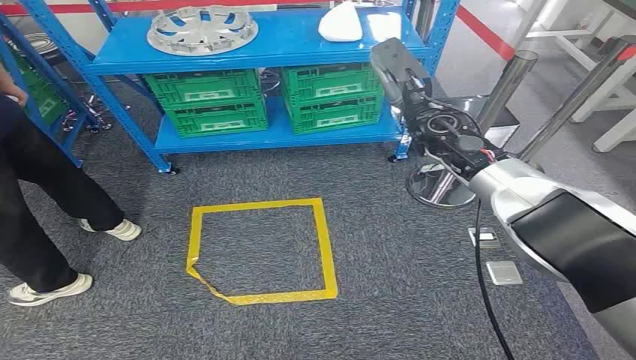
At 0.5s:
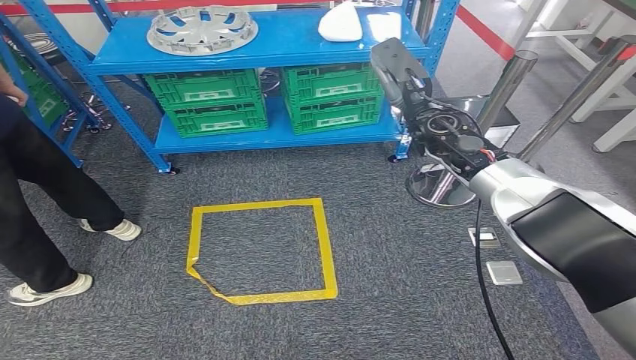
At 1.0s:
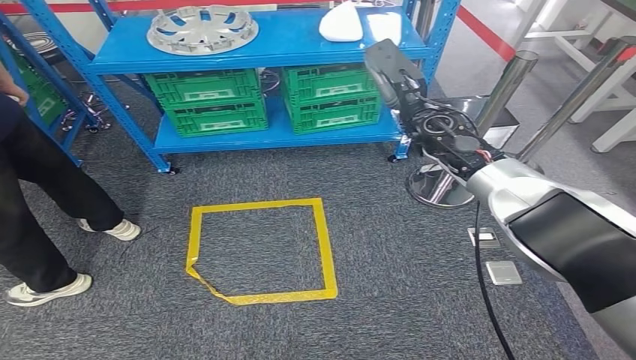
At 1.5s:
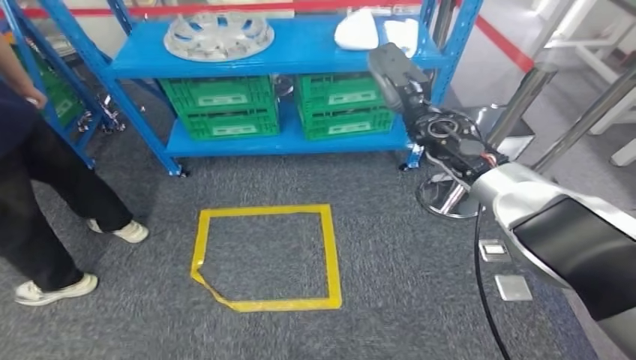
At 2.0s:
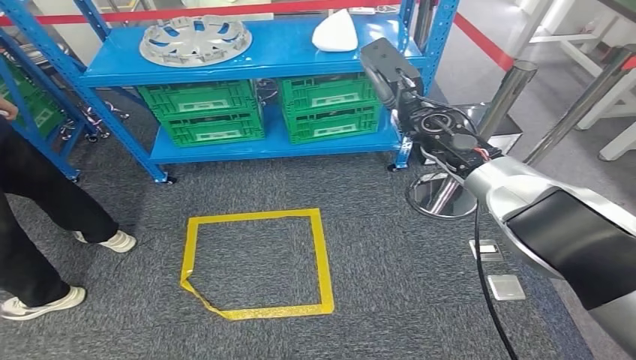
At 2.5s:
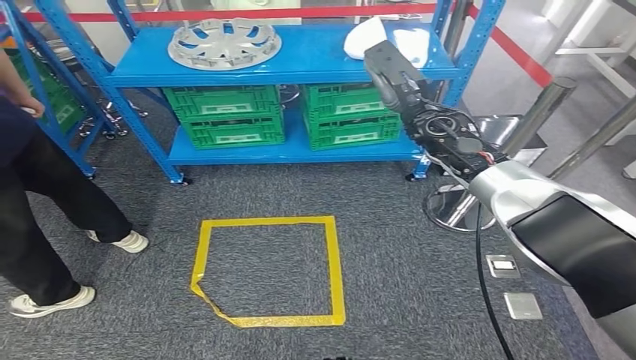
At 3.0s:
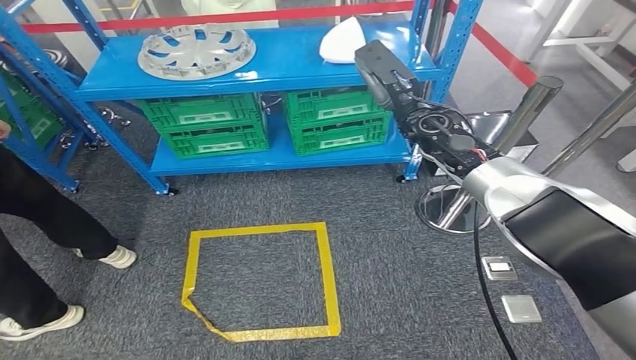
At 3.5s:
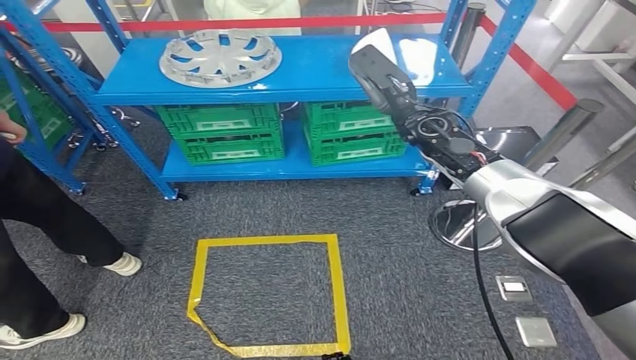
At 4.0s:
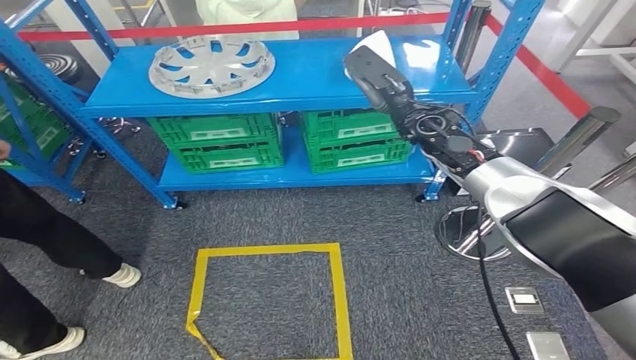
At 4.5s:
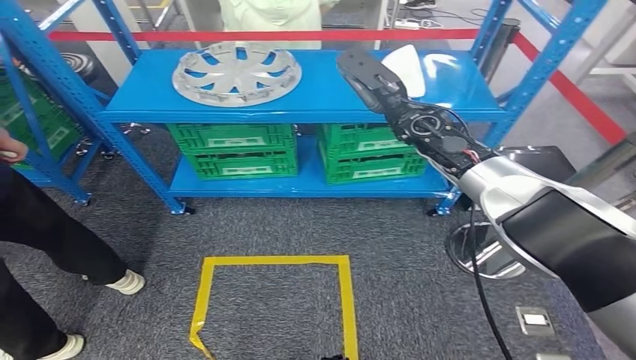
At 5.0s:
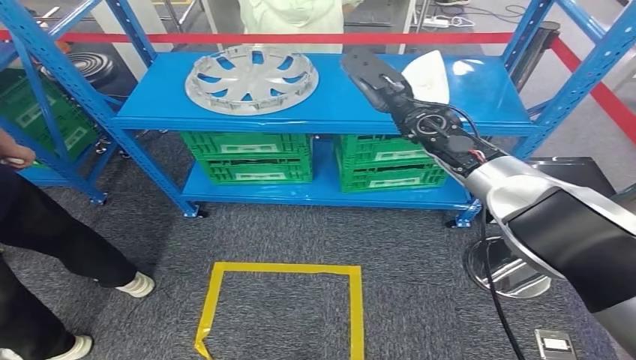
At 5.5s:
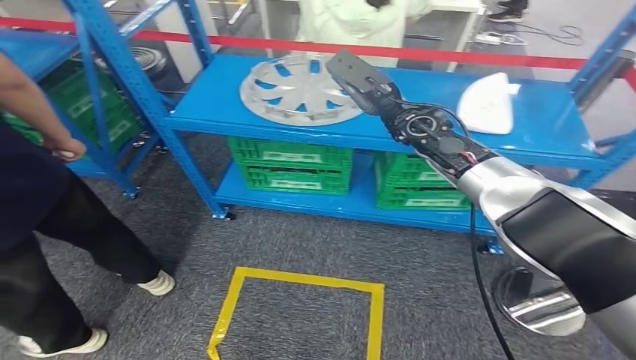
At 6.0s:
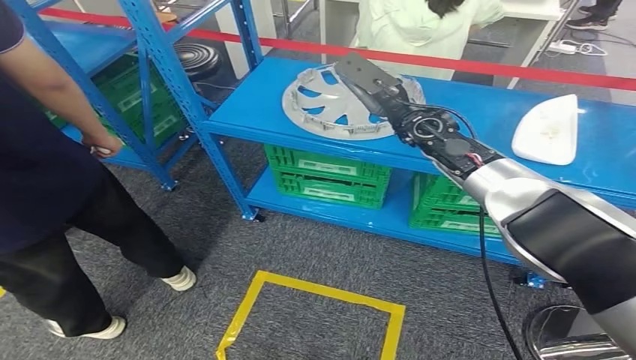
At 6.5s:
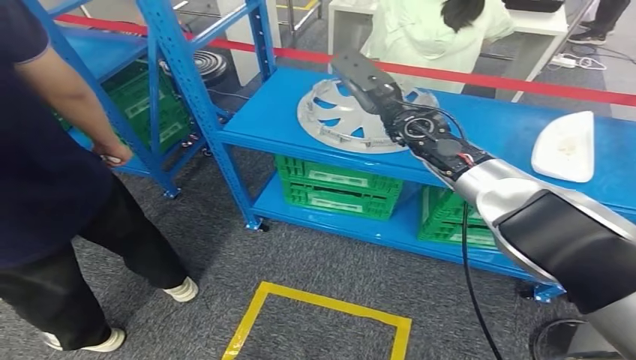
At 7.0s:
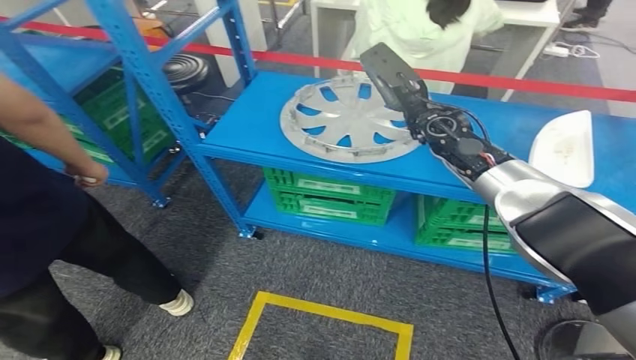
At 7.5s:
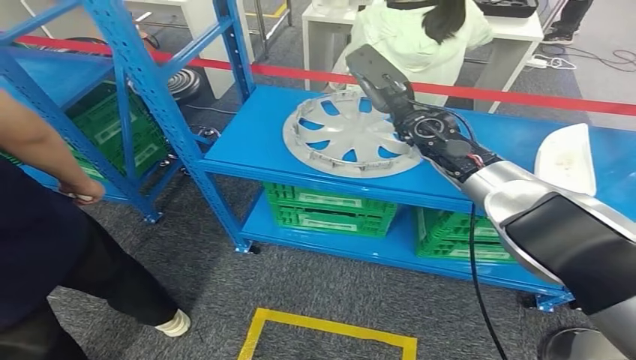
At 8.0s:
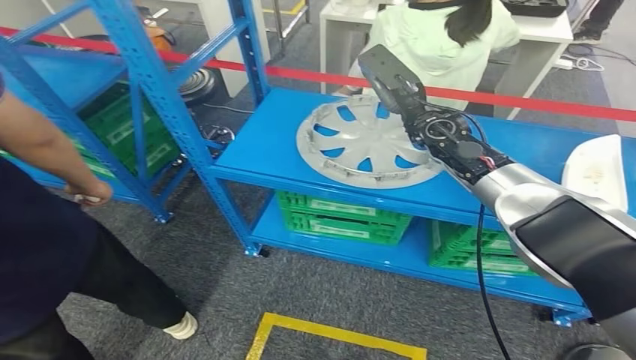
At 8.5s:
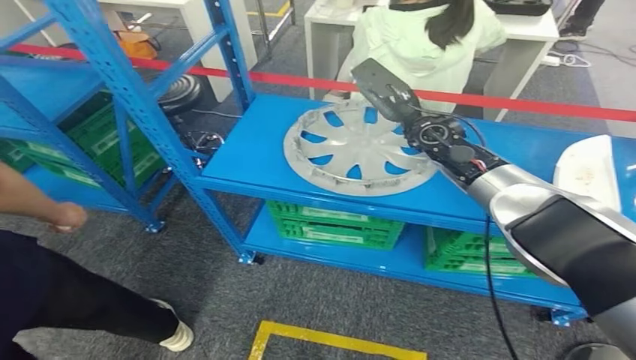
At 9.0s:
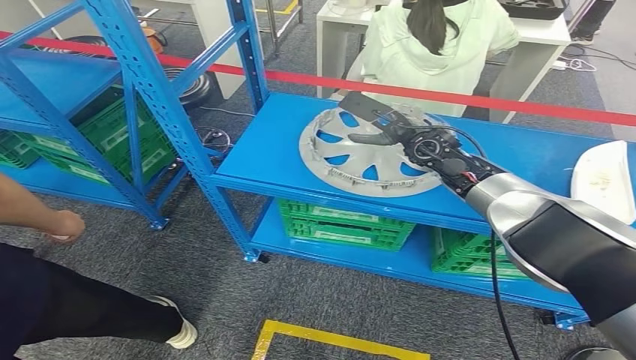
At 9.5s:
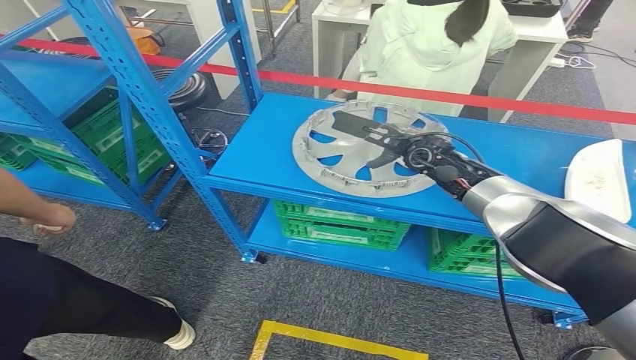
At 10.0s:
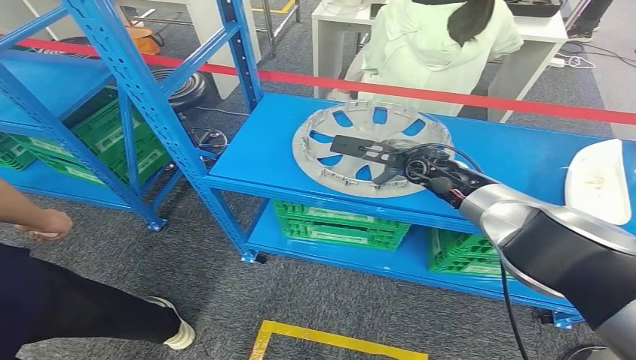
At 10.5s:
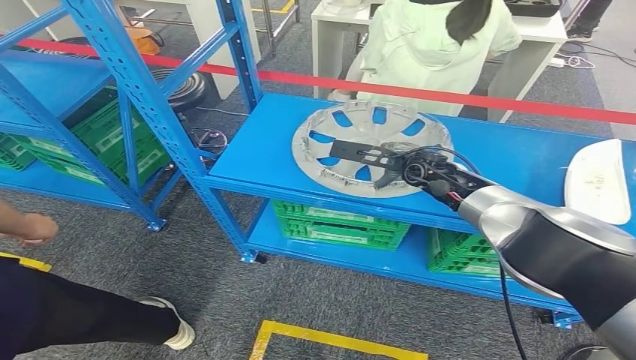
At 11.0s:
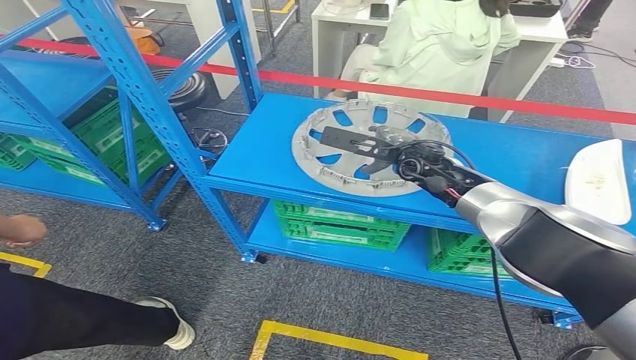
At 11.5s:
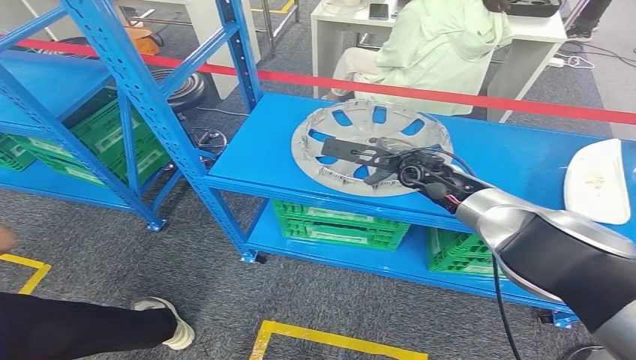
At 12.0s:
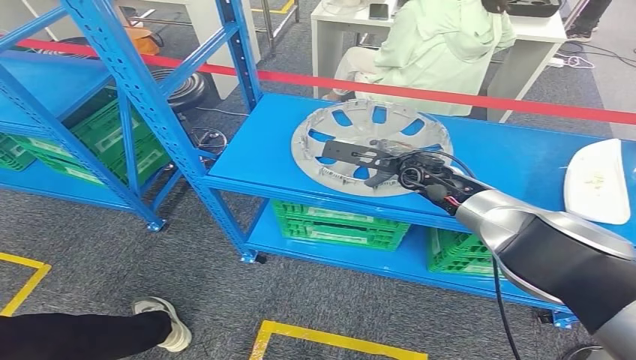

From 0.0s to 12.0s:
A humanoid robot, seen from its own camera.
From 10.0s to 12.0s: The hands make only small movements.

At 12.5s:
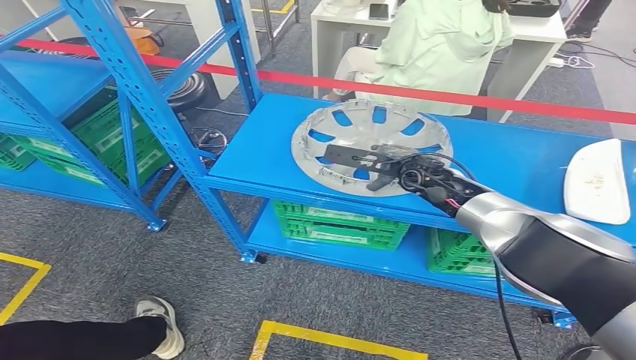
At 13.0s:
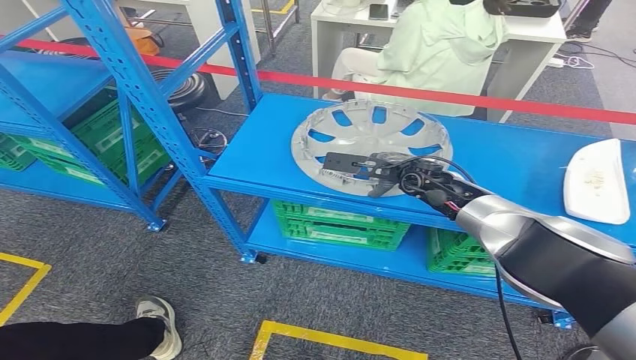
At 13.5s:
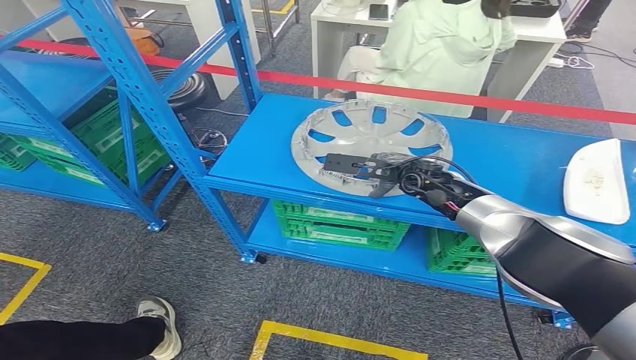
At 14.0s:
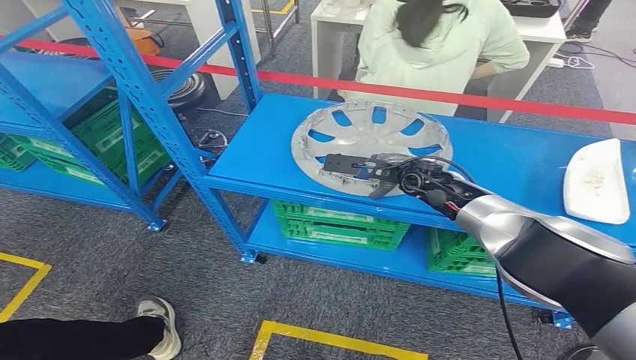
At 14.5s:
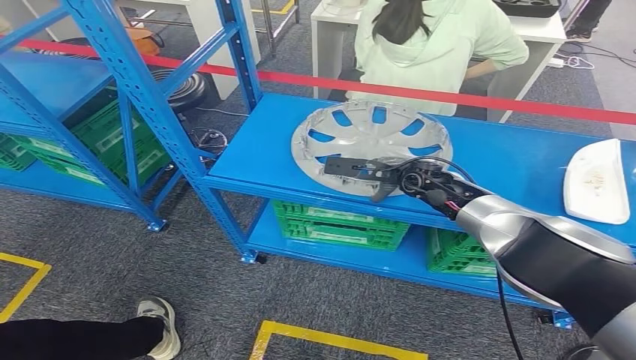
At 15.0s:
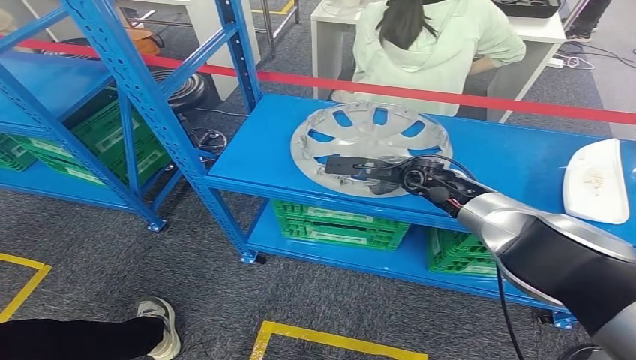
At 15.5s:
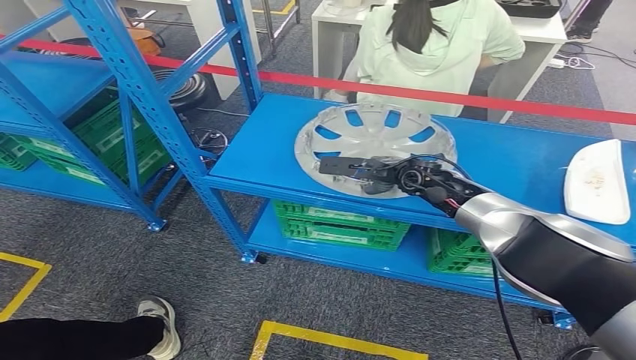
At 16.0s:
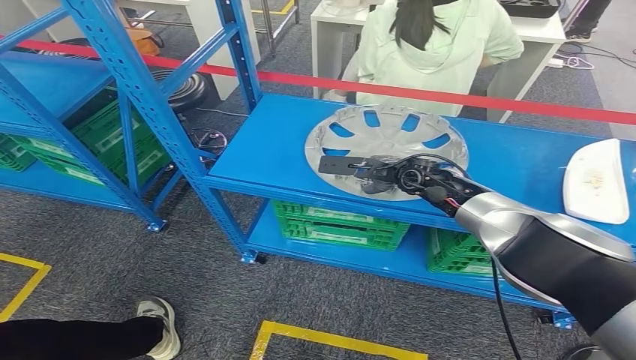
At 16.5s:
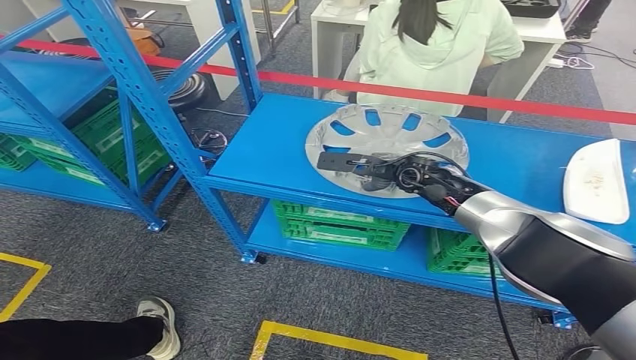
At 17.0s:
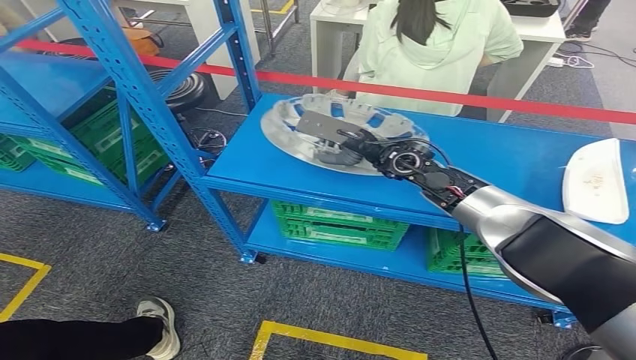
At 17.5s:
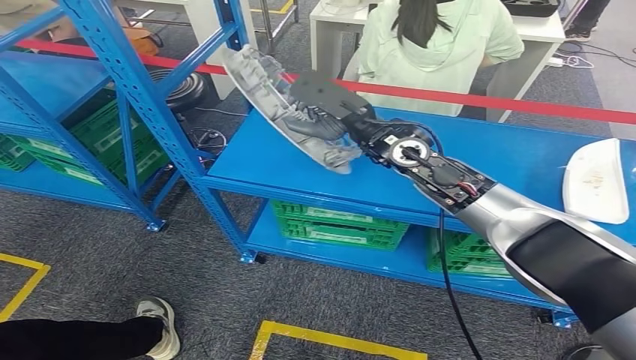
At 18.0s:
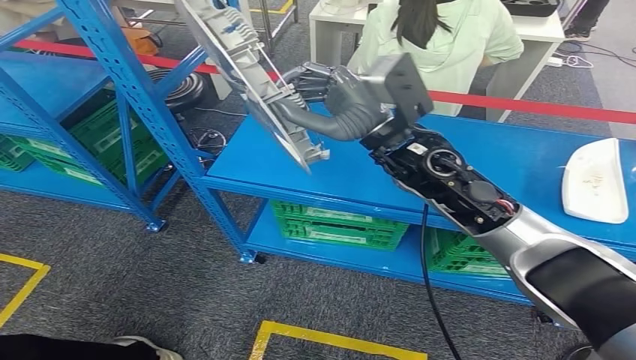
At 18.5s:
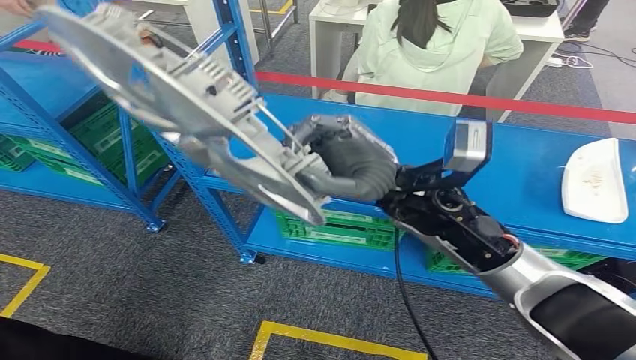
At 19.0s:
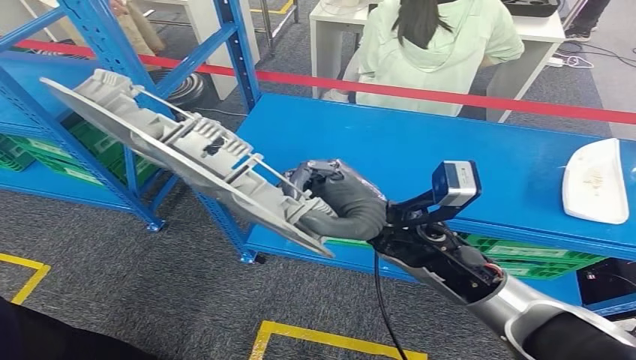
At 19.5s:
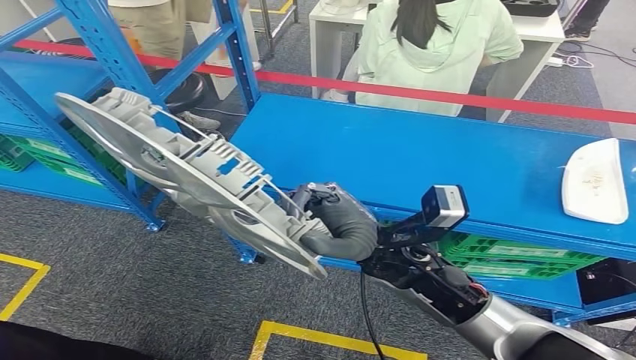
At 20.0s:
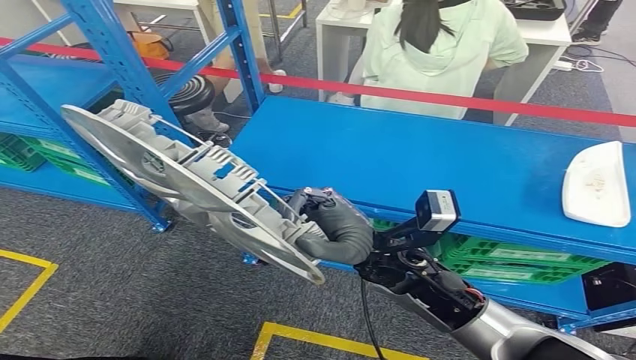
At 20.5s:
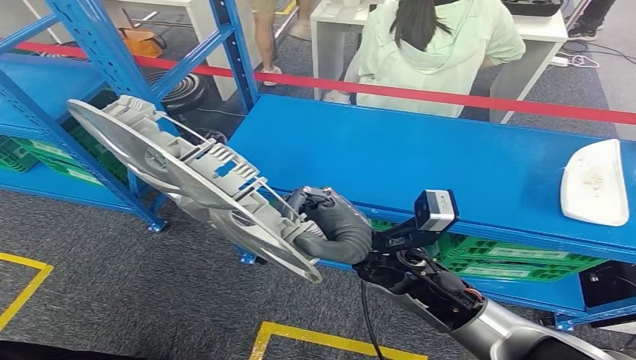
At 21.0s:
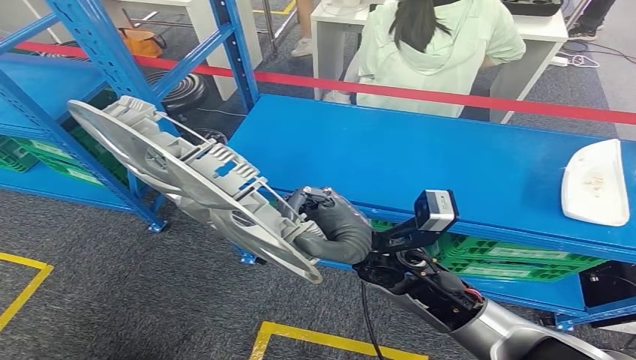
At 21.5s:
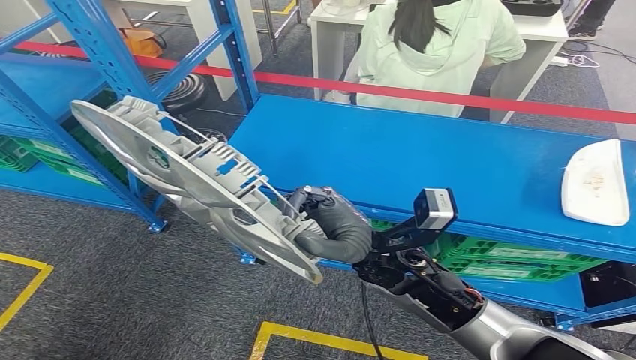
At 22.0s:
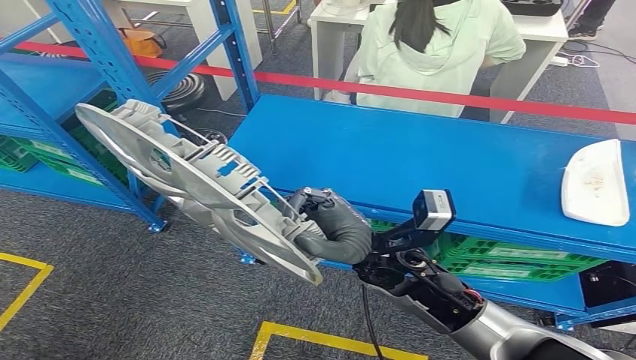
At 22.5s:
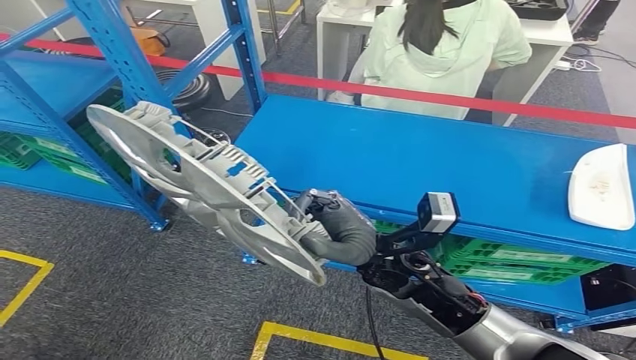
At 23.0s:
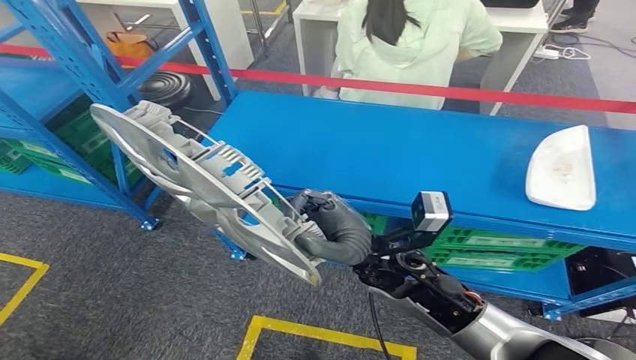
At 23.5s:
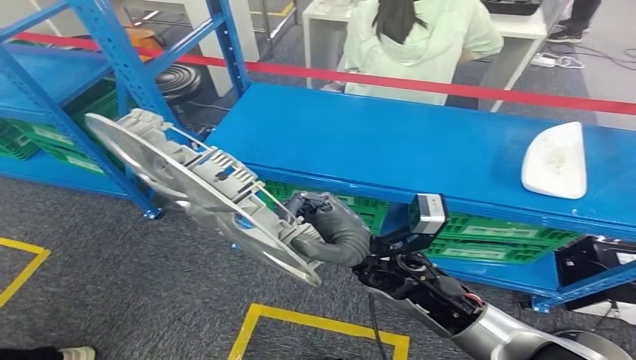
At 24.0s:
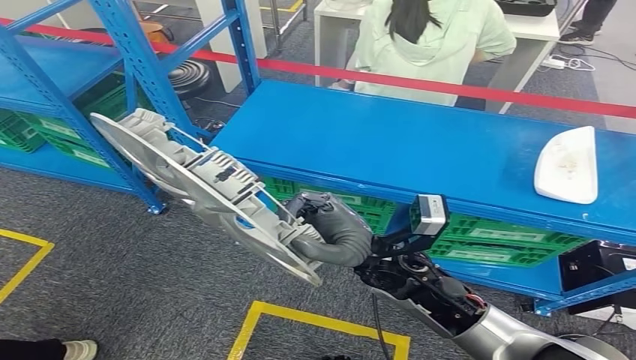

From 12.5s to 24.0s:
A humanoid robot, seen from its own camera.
Step, from 12.5s to 18.0s: Pick up the small component from the shelf.
From 12.5s to 14.5s: The hands make only small movements.
From 14.5s to 16.5s: Both hands stay about where they are.
